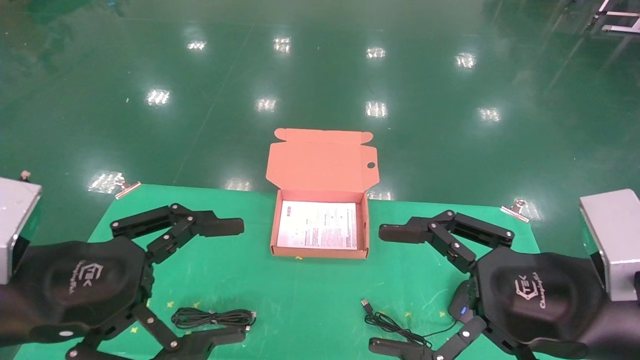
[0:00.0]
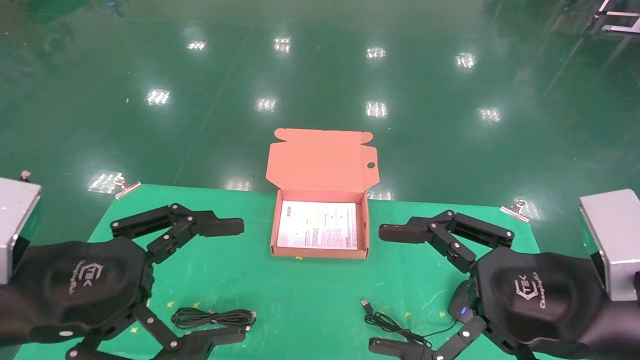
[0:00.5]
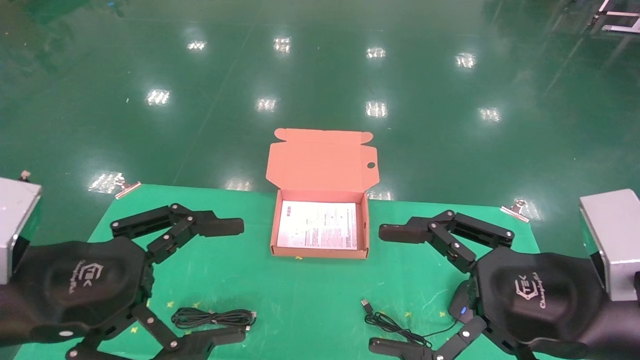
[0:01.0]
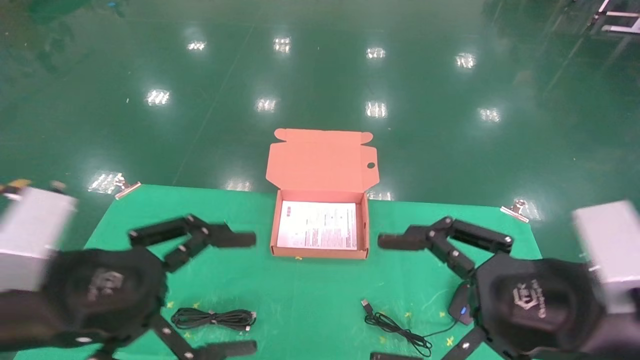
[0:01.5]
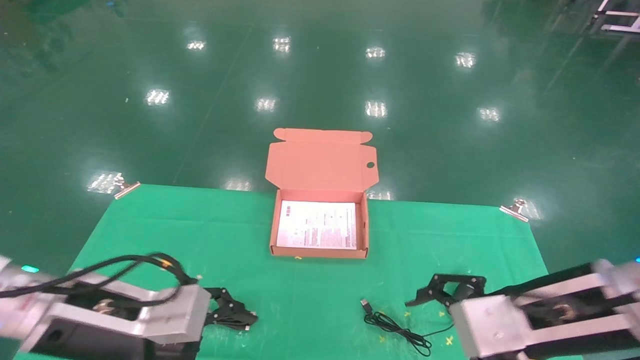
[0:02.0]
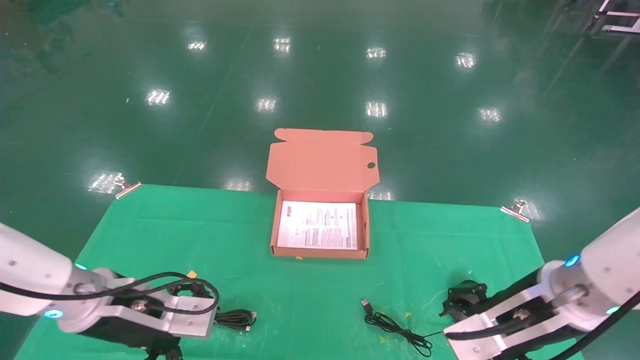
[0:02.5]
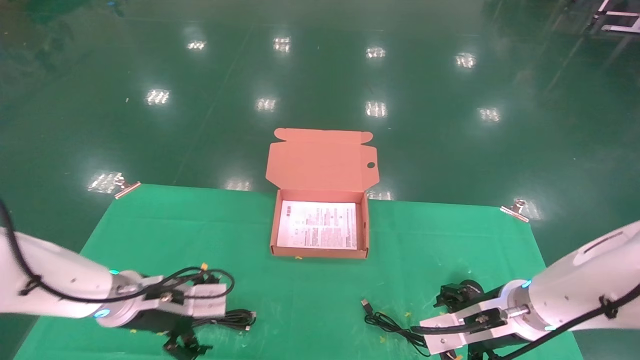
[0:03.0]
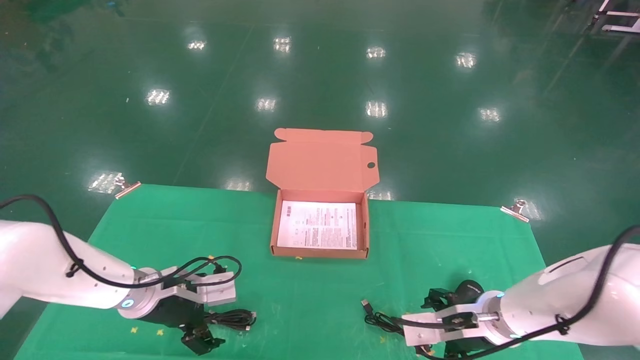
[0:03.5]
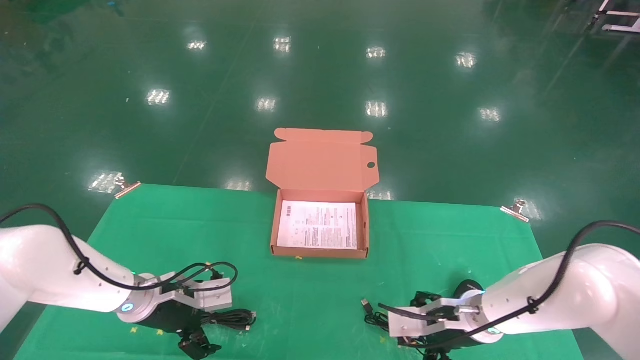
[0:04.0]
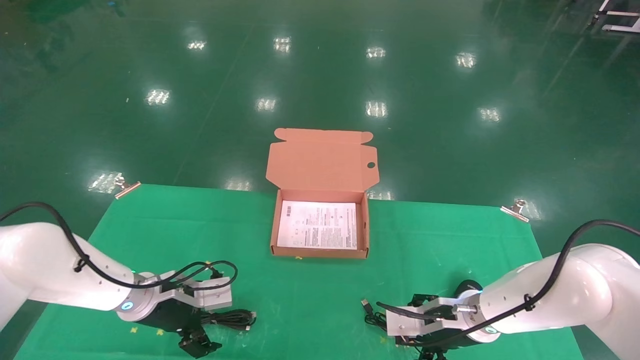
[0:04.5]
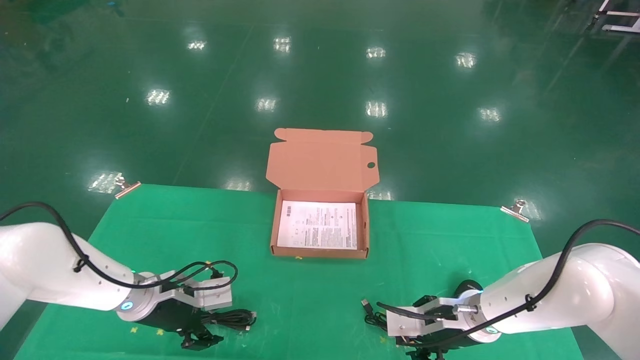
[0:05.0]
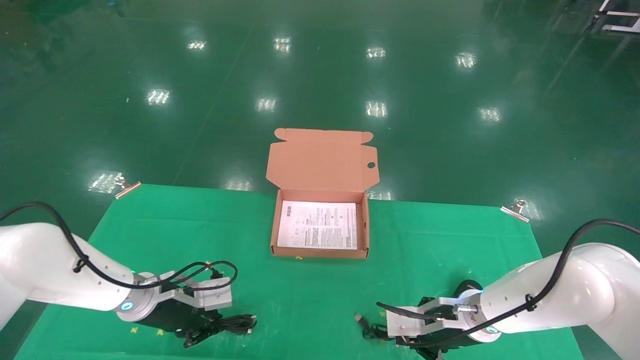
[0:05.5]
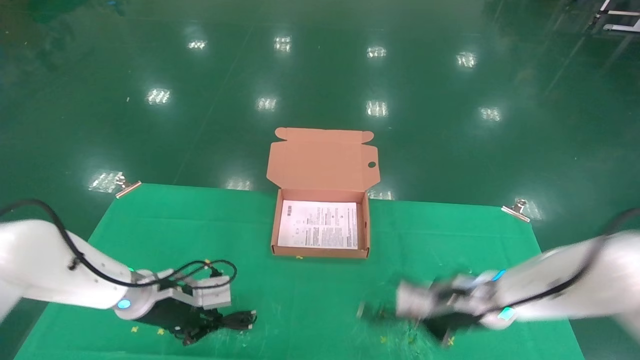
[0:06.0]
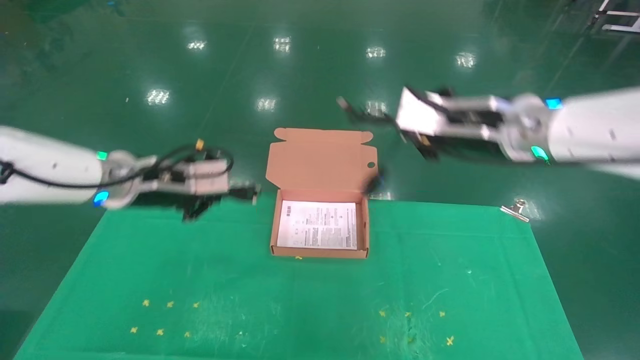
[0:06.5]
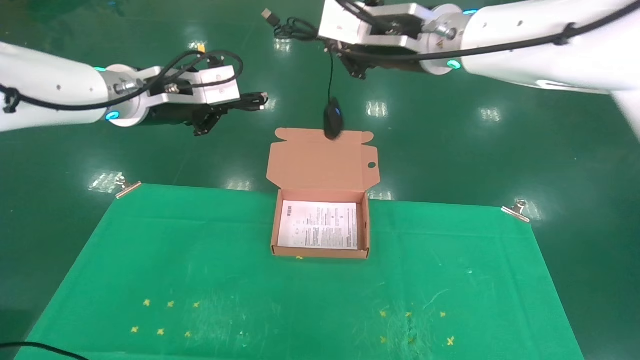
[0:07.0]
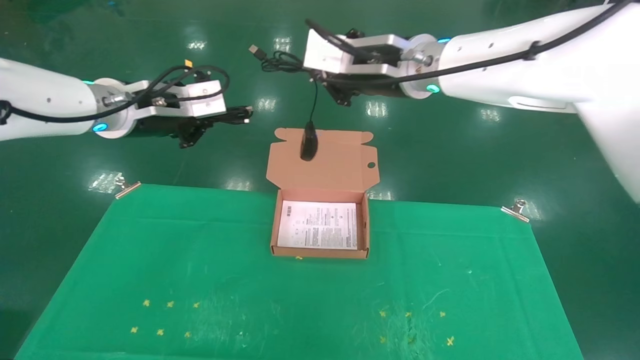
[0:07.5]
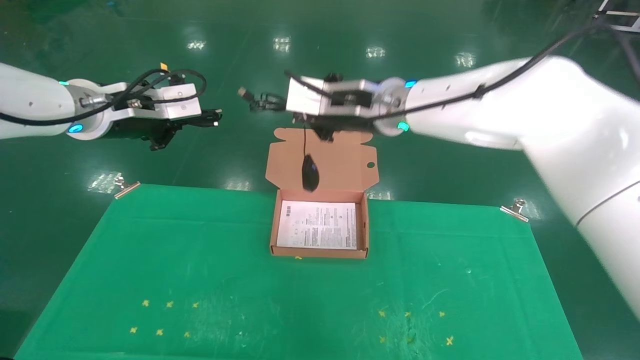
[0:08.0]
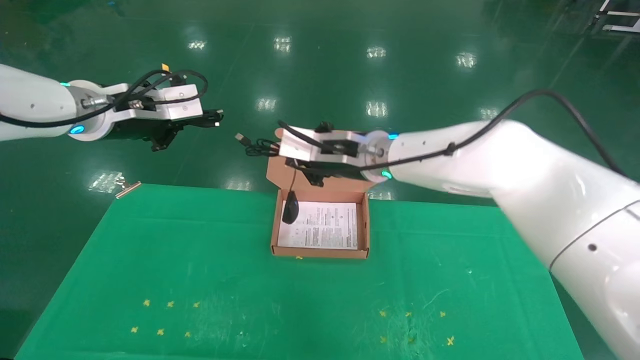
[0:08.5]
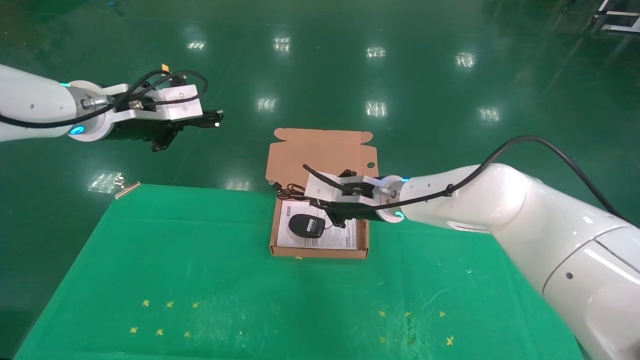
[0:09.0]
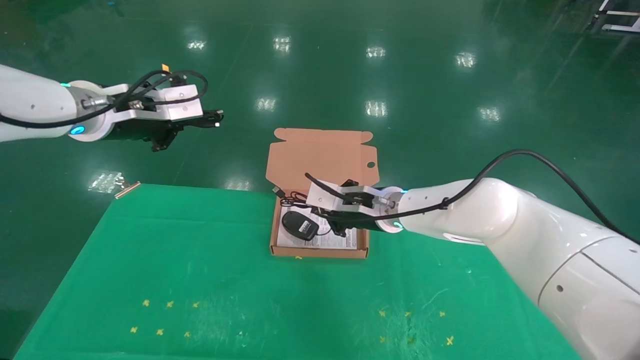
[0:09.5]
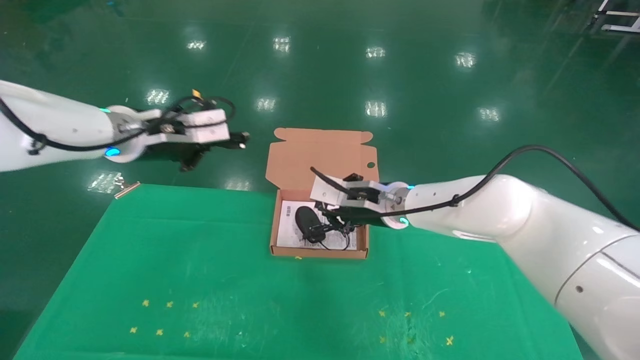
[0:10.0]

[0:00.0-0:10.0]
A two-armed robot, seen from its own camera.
Task of the whole recording: grasp data cable left put into box grasp mouse right put into box.
Step, 0:01.5 to 0:06.0: Grab and pick up both the mouse and power cord from the accessory packaging area at the same time.
0:00.0 to 0:02.0: The left gripper shifts roughly 10 cm forward and downward; the right gripper goes some 5 cm forward.
0:02.0 to 0:04.0: The right gripper shifts some 20 cm downward and forward. The left gripper goes approximately 20 cm forward and downward.
0:04.0 to 0:06.0: The right gripper goes some 10 cm upward, and closes up. Meanwhile the left gripper closes up.
0:06.0 to 0:08.0: The right gripper heads upward and to the left, covering roughly 25 cm; the left gripper is displaced upward by approximately 25 cm.
0:08.0 to 0:10.0: The right gripper goes some 15 cm downward, while the left gripper ends up approximately 5 cm from where it was.

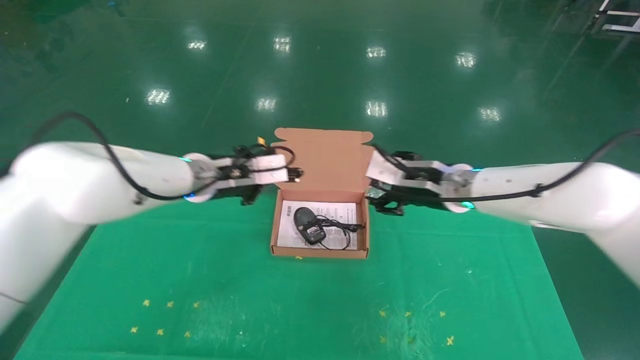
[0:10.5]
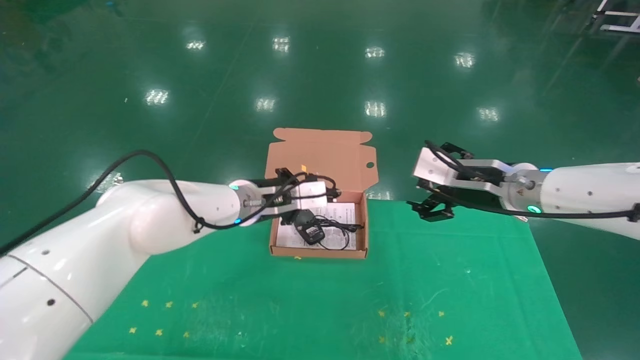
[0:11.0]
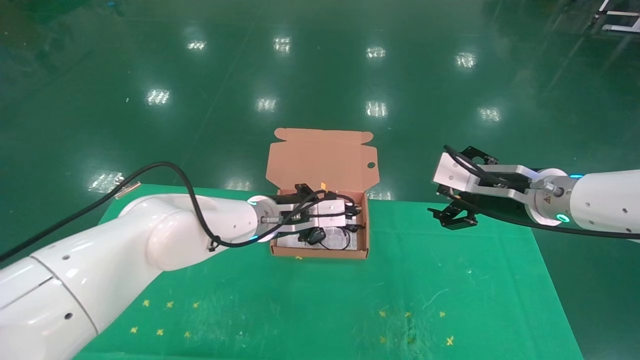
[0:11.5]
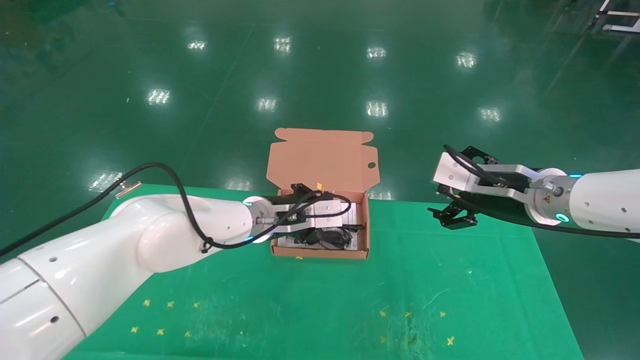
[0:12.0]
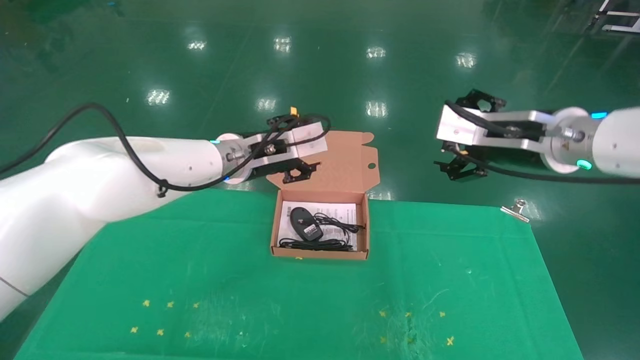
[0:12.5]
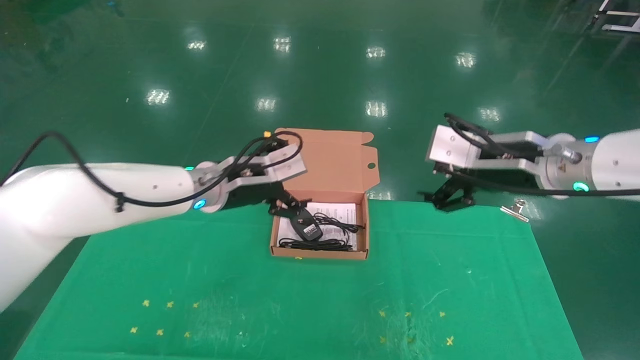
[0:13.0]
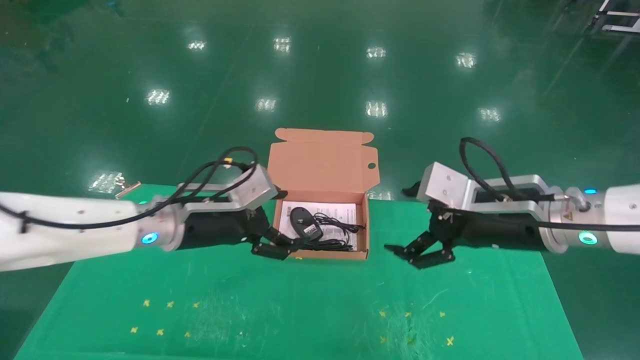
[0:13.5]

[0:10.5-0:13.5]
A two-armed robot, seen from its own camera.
Task of the whole recording: grasp data cable left put into box grasp mouse right put into box.
Step, 0:10.5 to 0:12.5: Place the mouse and power cord into the box.
0:10.5 to 0:12.0: The left gripper travels to the right and downward by some 10 cm, while the right gripper goes some 10 cm to the right and backward, and opens.
0:12.0 to 0:13.5: The right gripper heads backward, covering some 5 cm, and travels upward and back again, about 5 cm each way, while the left gripper travels to the left and backward by about 15 cm, and opens.
